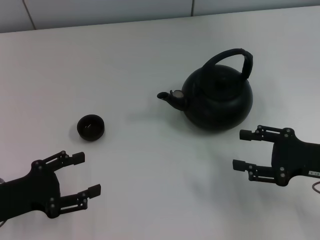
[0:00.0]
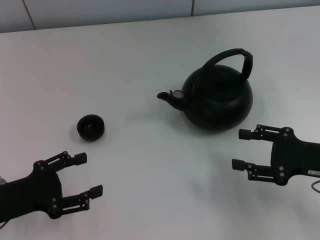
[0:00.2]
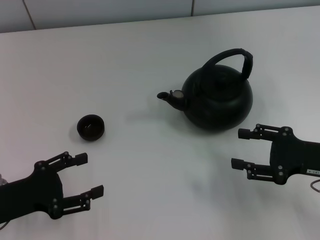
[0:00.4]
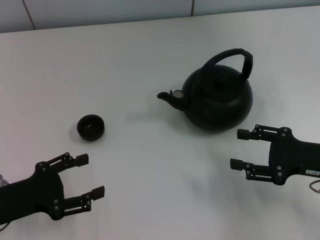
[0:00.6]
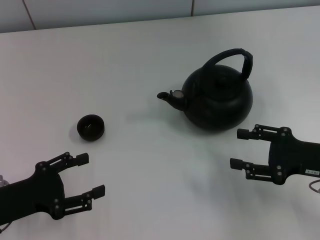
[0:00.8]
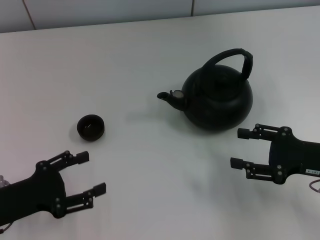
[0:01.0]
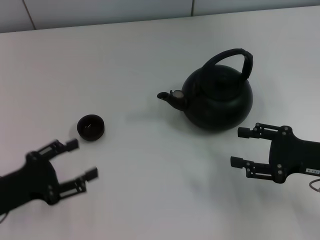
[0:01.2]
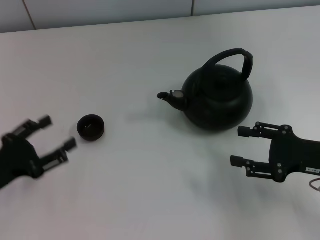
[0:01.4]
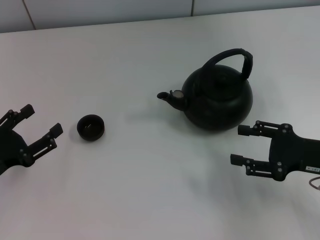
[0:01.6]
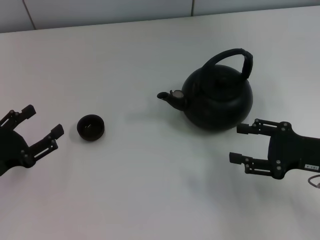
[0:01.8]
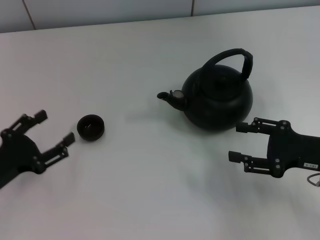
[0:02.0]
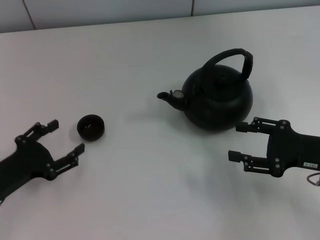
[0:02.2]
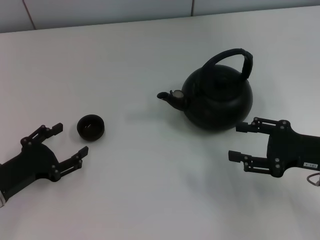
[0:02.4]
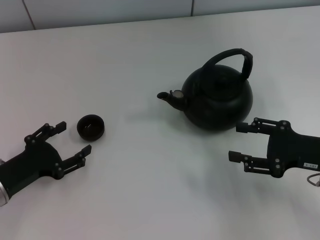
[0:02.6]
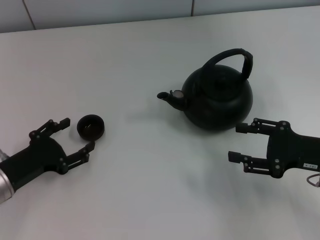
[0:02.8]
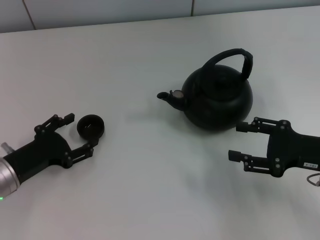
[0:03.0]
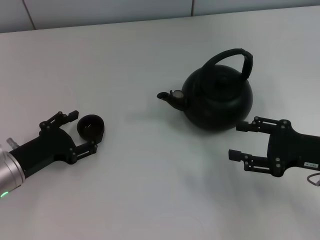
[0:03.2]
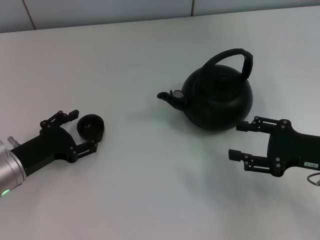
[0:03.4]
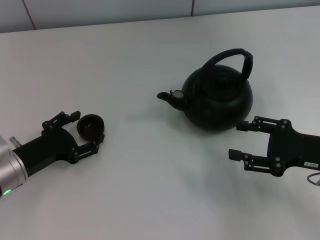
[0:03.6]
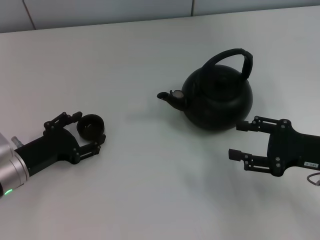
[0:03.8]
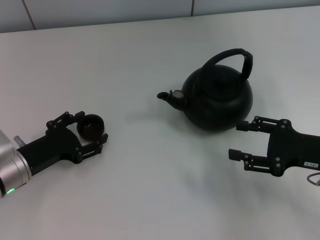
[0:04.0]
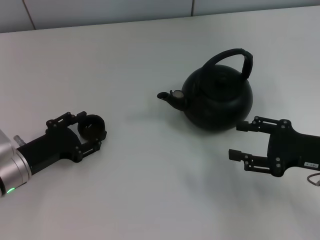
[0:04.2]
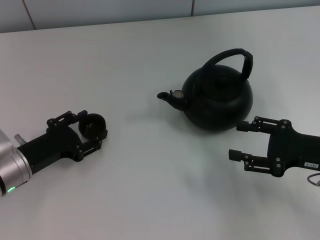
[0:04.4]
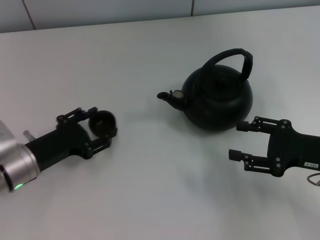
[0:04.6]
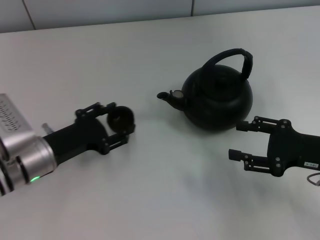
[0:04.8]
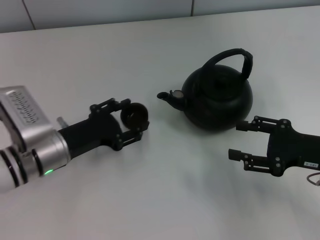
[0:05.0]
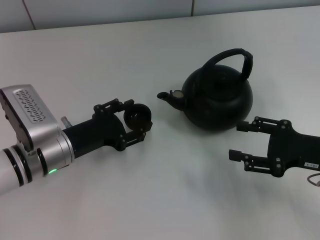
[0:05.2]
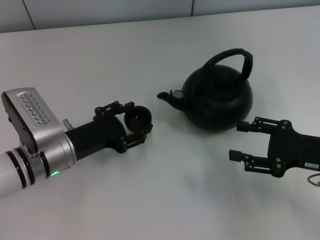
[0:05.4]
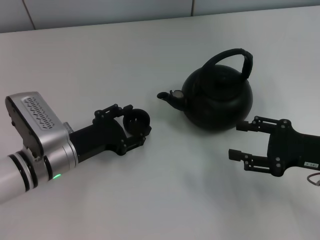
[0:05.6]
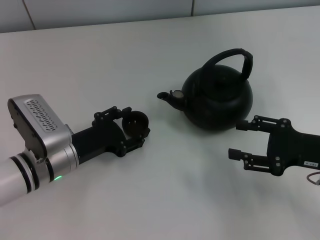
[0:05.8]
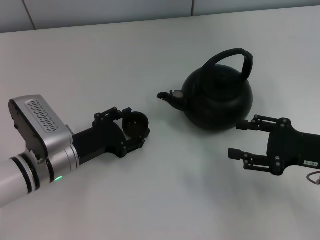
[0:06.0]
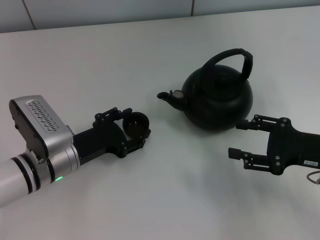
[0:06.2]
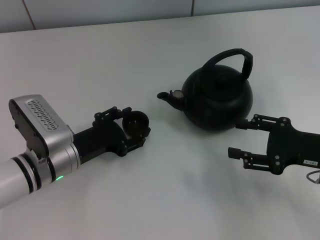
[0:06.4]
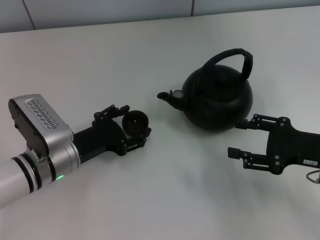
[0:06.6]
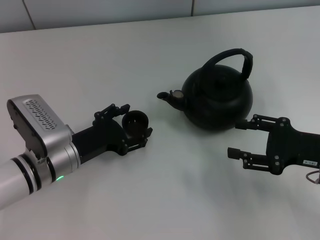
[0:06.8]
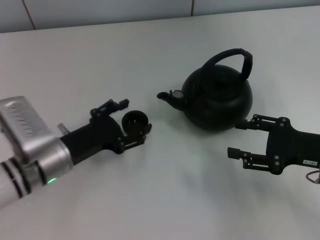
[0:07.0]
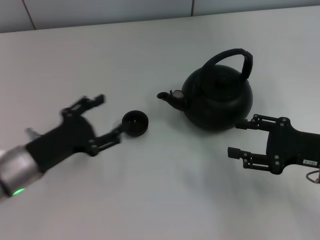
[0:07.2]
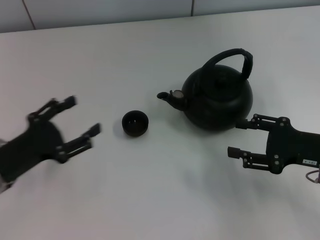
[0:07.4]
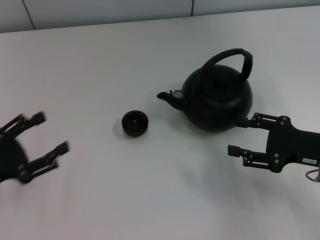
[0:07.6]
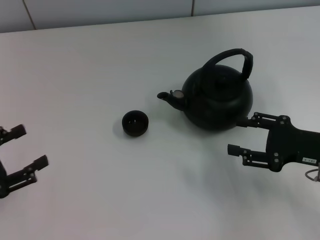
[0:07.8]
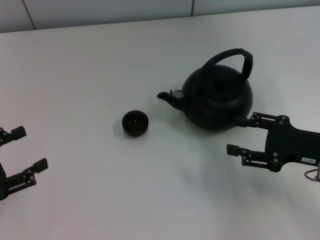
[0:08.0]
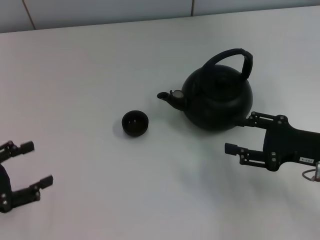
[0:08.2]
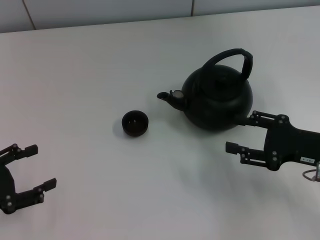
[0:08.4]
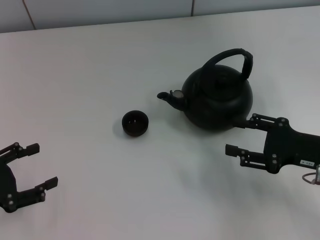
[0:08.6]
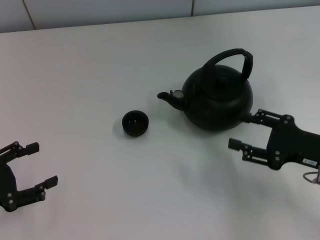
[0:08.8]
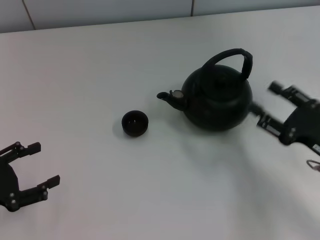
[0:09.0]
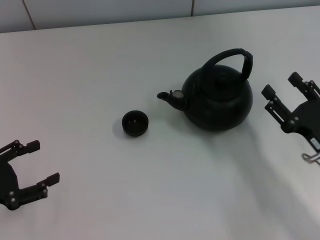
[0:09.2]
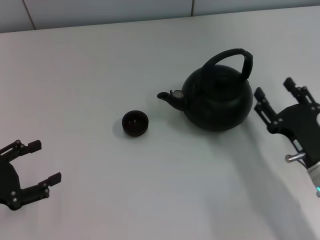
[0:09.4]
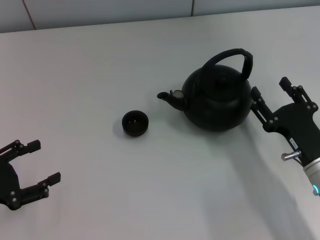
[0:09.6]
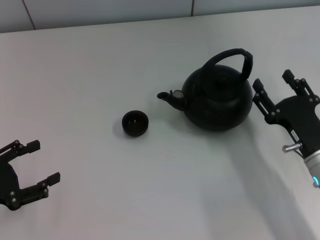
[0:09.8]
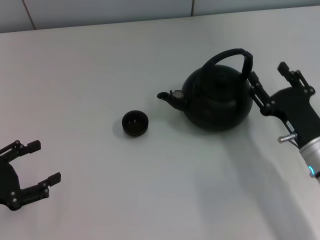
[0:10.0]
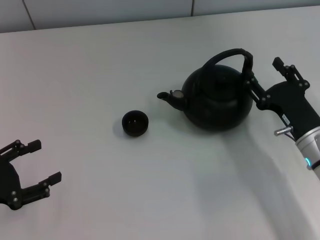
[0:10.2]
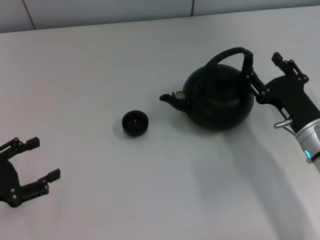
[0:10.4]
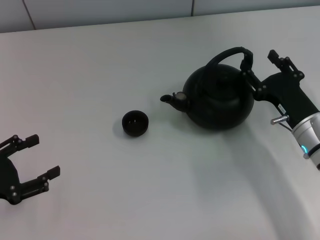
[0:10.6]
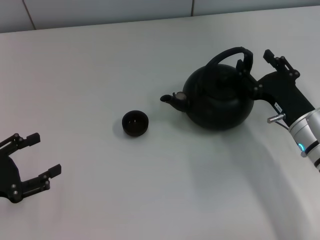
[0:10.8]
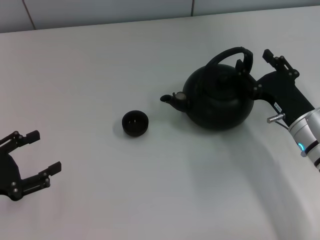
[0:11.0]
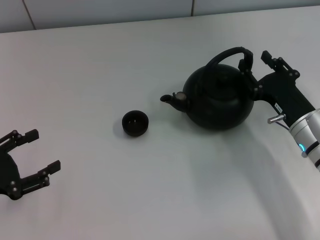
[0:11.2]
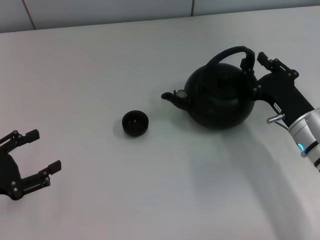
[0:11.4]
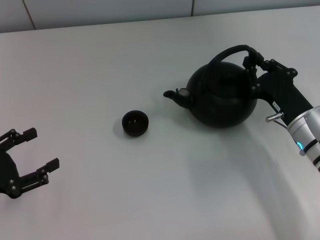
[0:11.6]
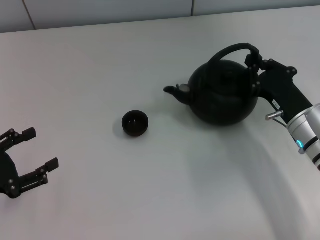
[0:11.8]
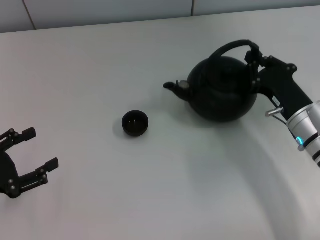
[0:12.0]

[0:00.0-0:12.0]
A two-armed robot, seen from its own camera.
Task of the whole recording: Grasp the handle of the teapot with one hand and pour tea into the teacup.
Step, 0:00.0 to 0:04.6: Pick up the teacup with the left gripper.
Step, 0:04.8 to 0:07.0: Place the teacup in the center of view with the left gripper.
0:01.6 to 0:03.0: The left gripper moves roughly 5 cm.
0:03.0 to 0:04.4: The left gripper closes its fingers.
0:04.4 to 0:06.0: The left gripper is displaced to the right by approximately 5 cm.
0:06.0 to 0:07.6: The left gripper goes about 15 cm to the left and backward, and opens its fingers.
0:09.0 to 0:10.4: The right gripper shifts roughly 5 cm forward.
0:10.4 to 0:12.0: The right gripper closes its fingers.

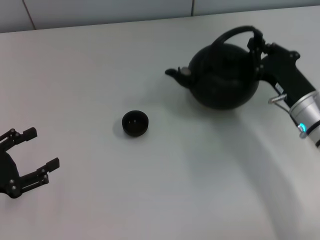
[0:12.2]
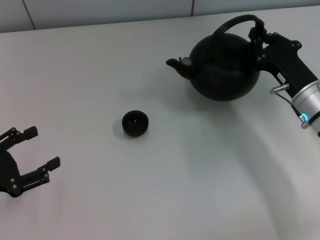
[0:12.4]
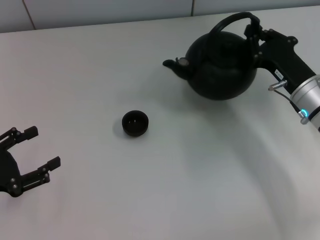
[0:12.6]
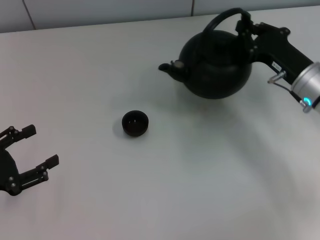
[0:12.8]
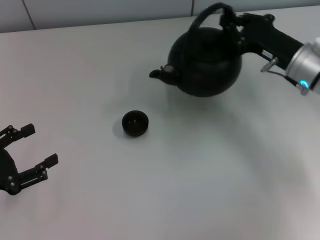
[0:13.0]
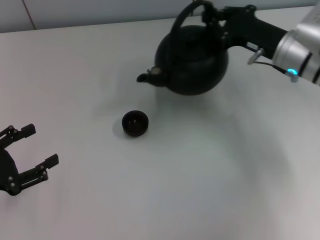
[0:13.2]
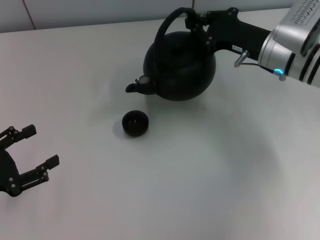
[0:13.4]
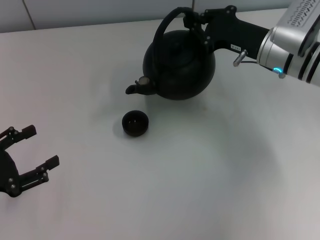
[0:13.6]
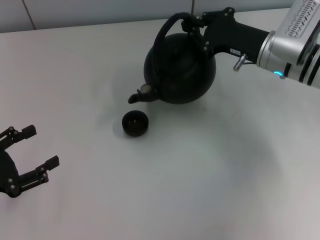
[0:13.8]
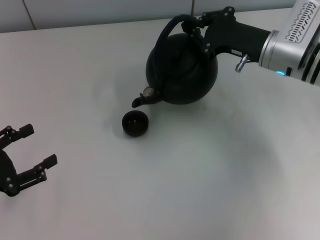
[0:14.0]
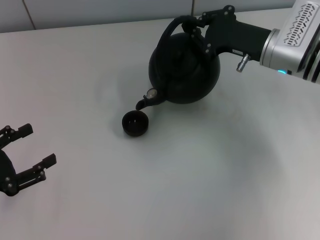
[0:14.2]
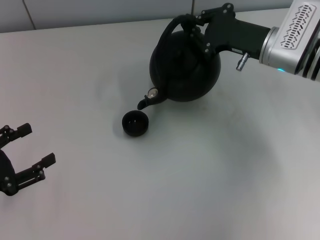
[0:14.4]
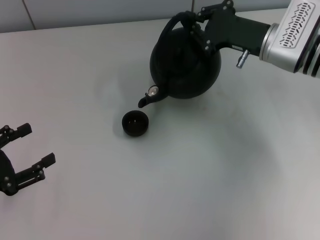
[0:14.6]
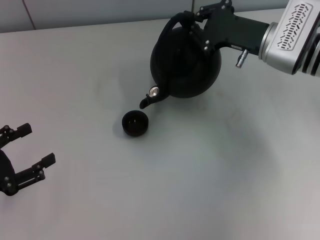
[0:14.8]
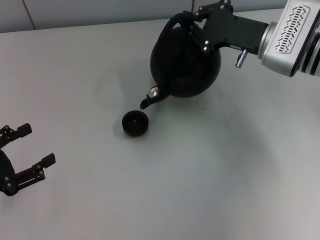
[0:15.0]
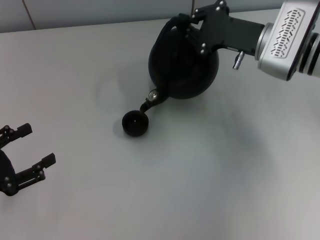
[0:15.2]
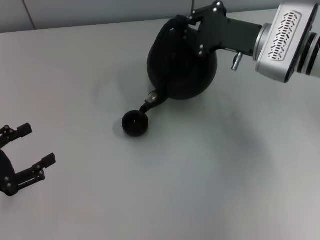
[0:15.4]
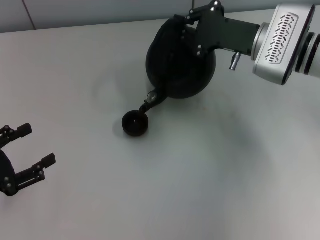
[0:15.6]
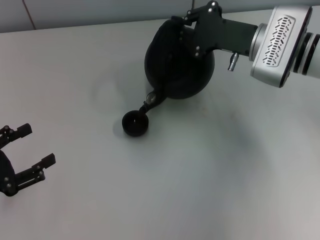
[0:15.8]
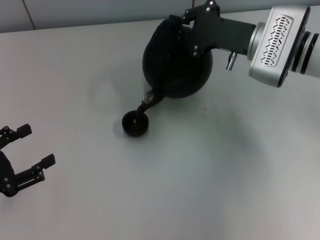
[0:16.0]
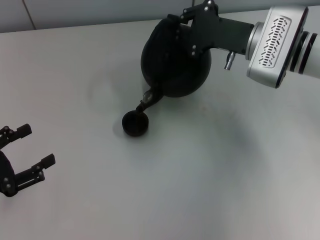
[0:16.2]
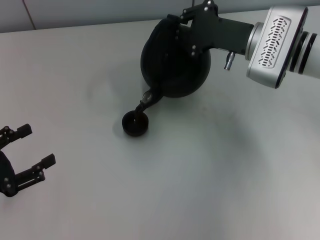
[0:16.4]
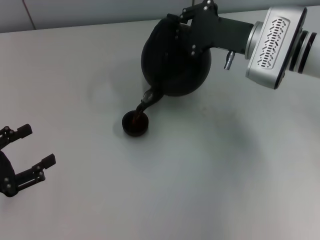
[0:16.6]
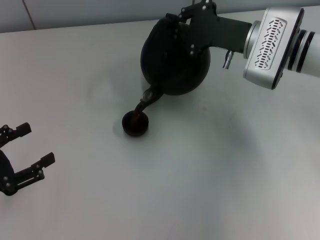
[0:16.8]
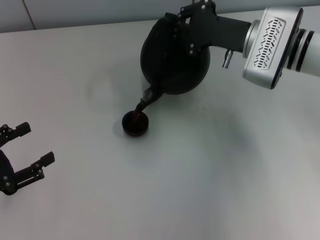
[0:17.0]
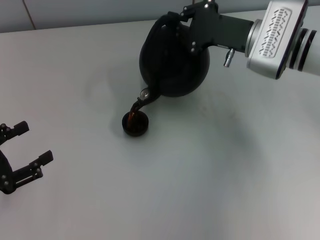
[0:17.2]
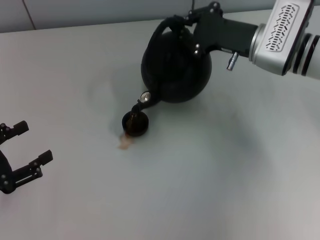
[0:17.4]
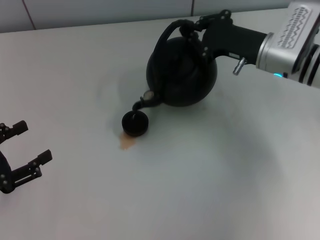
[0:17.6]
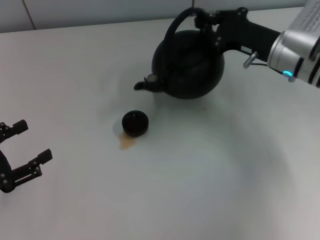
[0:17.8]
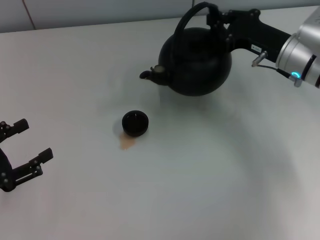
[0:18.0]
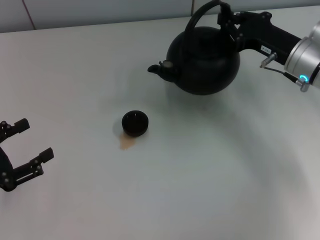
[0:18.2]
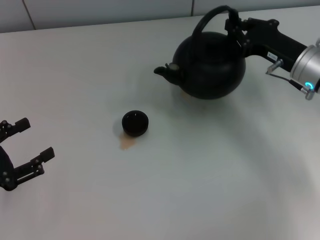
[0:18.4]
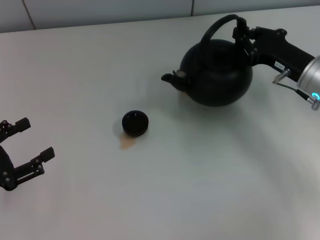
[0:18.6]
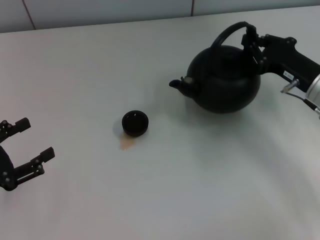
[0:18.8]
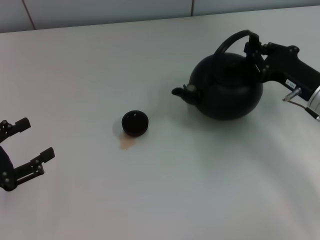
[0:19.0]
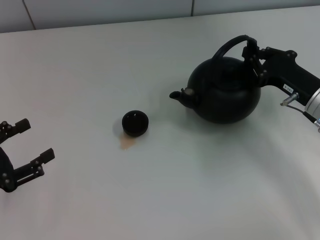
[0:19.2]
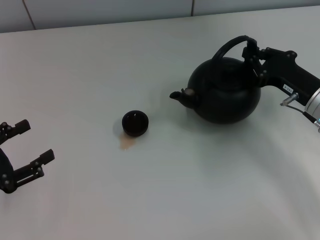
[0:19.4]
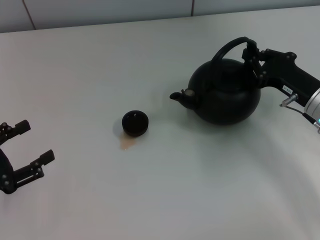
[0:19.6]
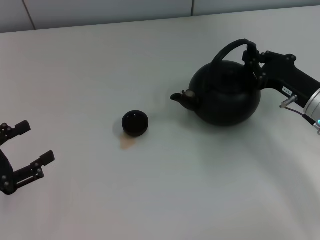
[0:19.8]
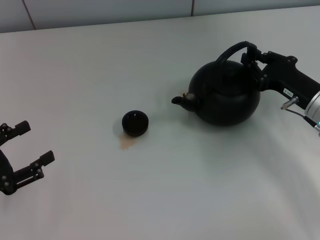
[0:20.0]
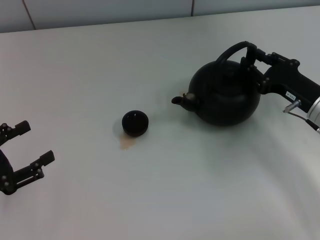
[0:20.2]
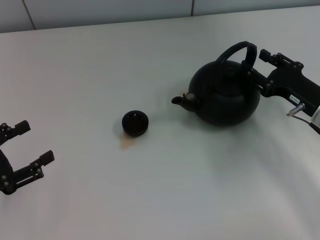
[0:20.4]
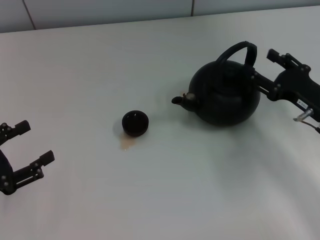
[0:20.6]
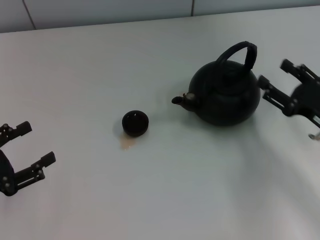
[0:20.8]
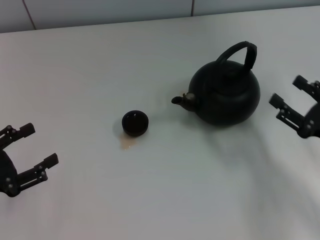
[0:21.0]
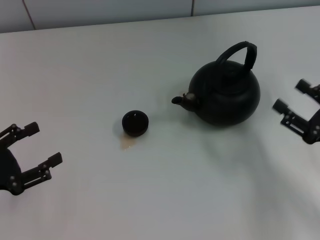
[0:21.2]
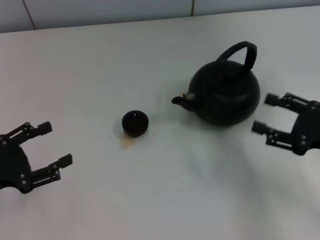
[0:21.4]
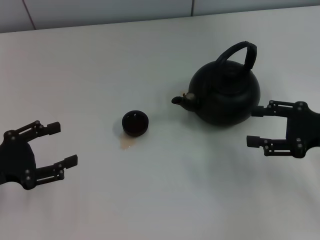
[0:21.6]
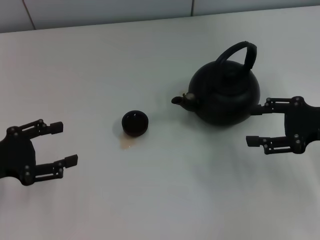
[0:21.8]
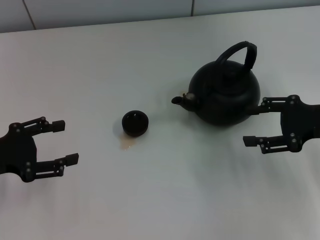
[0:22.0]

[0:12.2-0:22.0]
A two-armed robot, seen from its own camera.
Task of the whole recording: Grasp the handle of the teapot with one hand and pour tea into the teacup.
Step, 0:18.2 to 0:20.4: Put down the teapot with the right gripper.
0:12.2 to 0:13.6: The right gripper is displaced forward and upward by roughly 10 cm.
0:15.0 to 0:16.4: The grippers stay close to where they were, moving slightly.
0:17.8 to 0:19.2: The right gripper shifts some 5 cm backward.
0:19.2 to 0:20.6: The right gripper opens its fingers.
0:20.6 to 0:22.0: The right gripper is displaced upward by about 5 cm, and reaches about 10 cm backward, then returns; the left gripper moves forward, roughly 5 cm.
